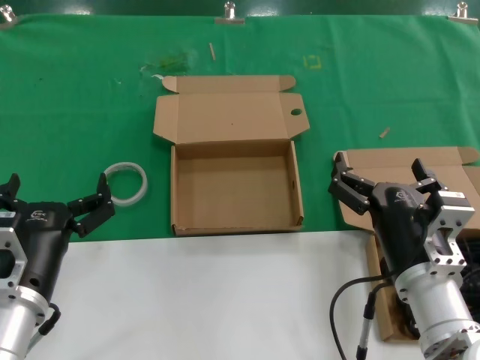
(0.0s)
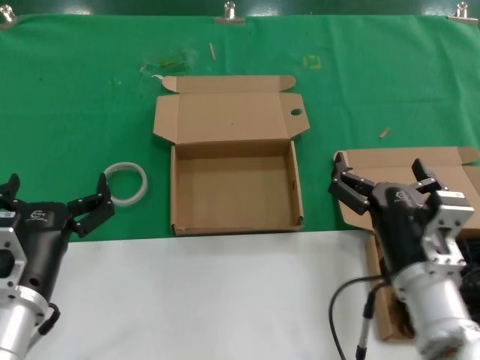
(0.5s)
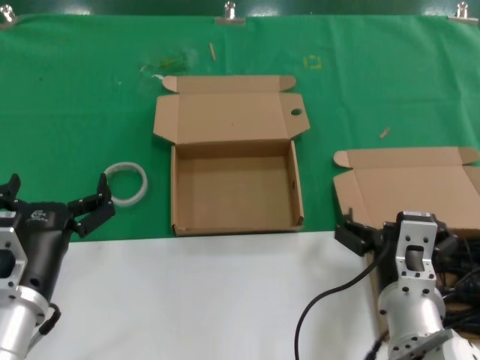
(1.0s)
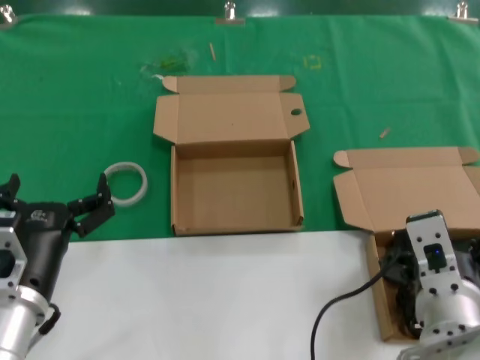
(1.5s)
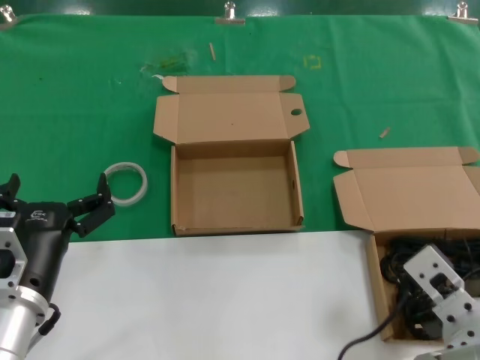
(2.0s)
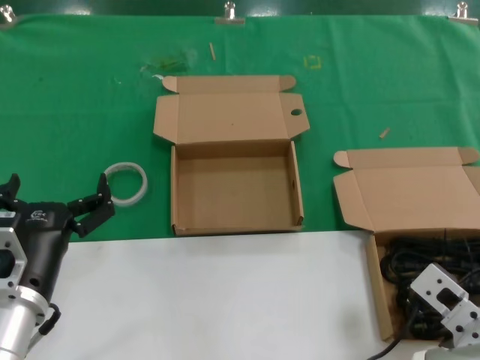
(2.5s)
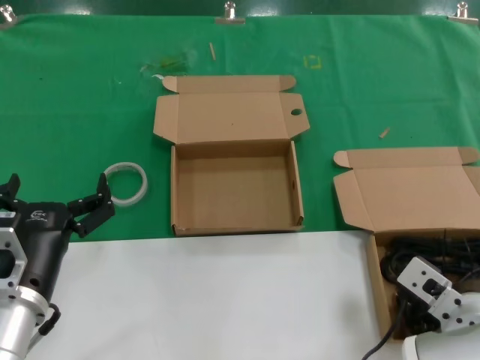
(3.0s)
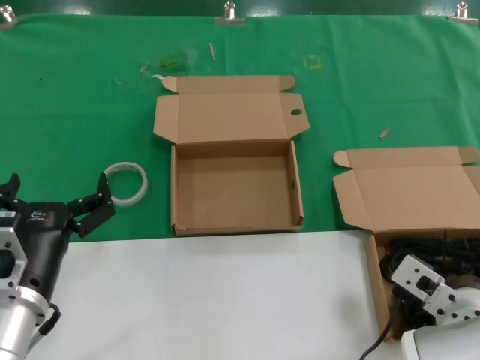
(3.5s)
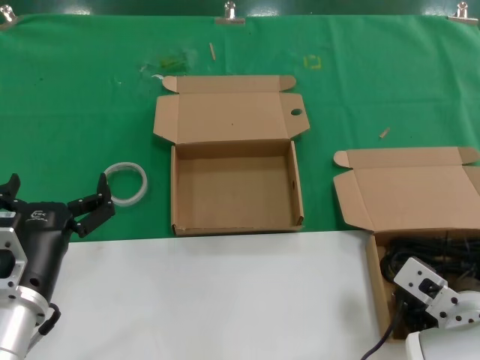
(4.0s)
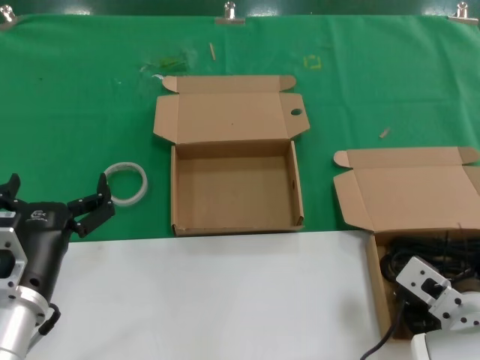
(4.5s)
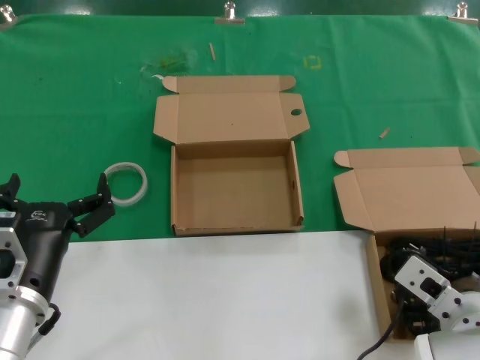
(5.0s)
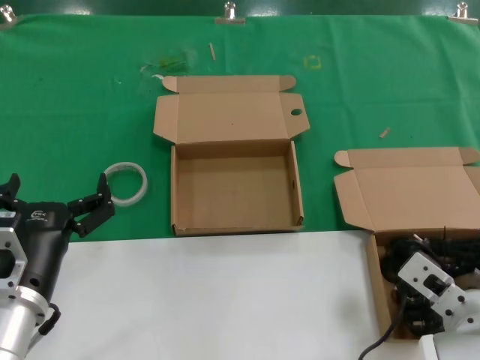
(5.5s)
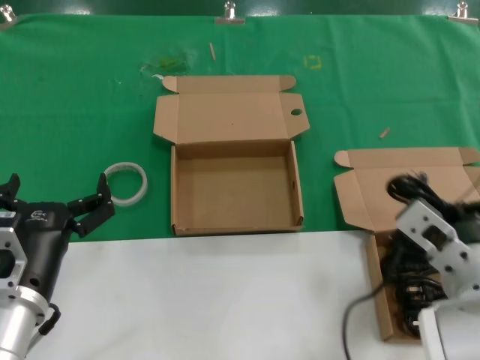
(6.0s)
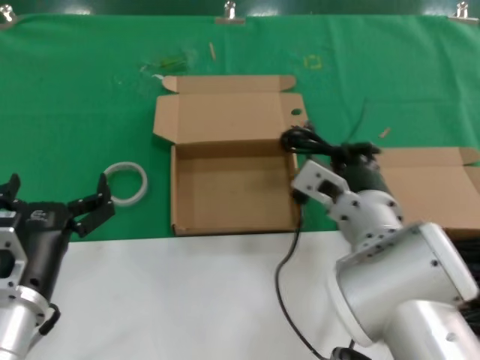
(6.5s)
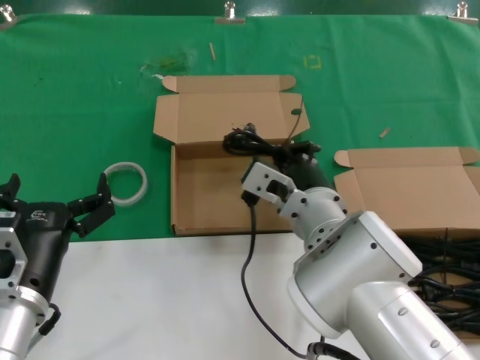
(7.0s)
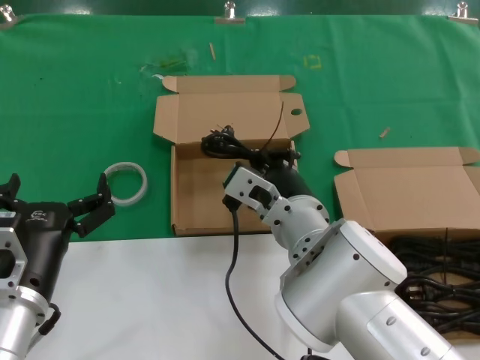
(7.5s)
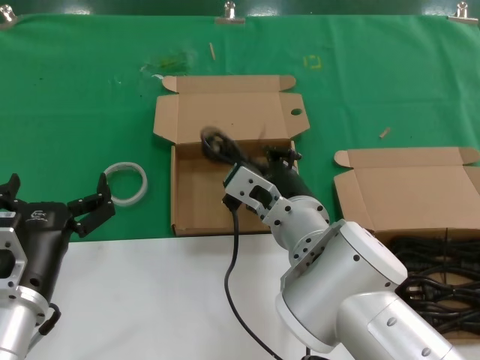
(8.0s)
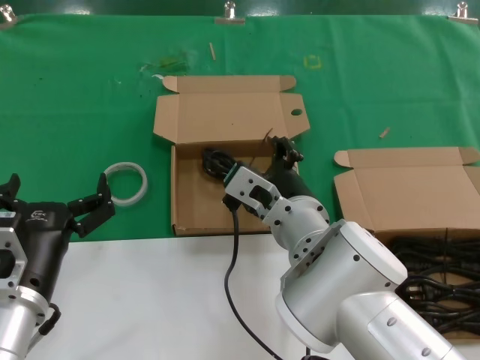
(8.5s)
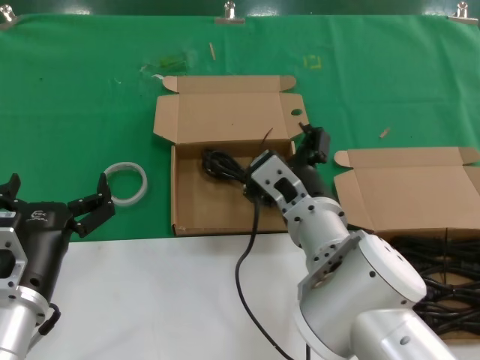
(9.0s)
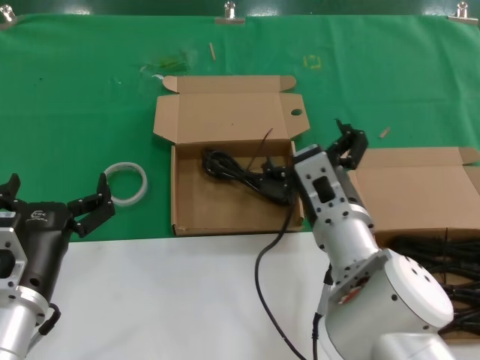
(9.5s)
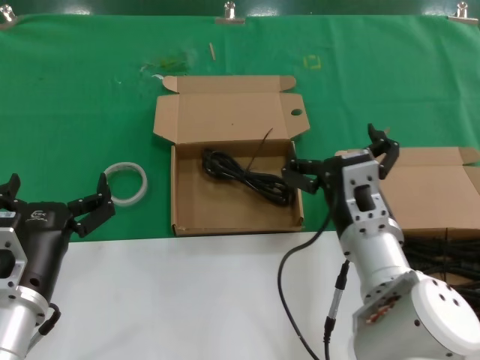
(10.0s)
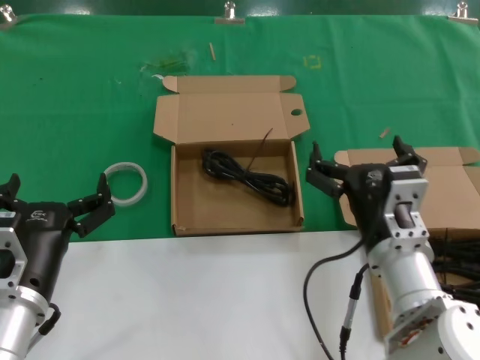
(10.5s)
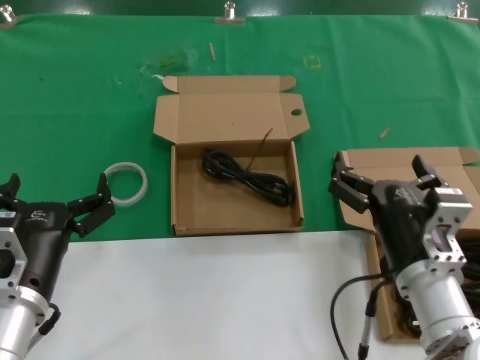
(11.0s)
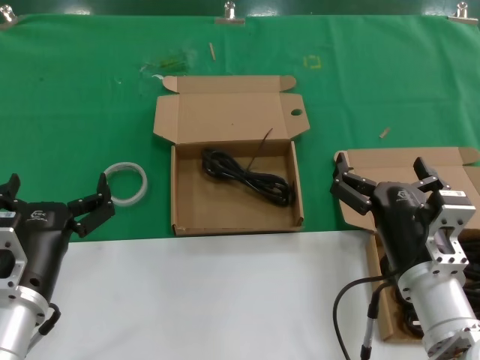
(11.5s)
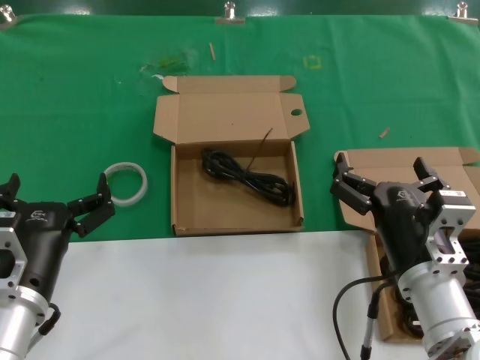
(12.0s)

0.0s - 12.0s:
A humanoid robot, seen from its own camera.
Task of the whole recording: take the parts from the box containing them and put them into an empty box.
Step, 0.0s - 5.0s: Grasp the data cable.
Step, 5.5s - 8.0s: Place the data cable in the another box.
0.0s - 2.0s: The right hand shifts roughly 5 cm upward.
2.0s - 4.0s: The right hand ends up approximately 5 cm from where it was.
4.0s - 6.0s: The right hand shifts approximately 5 cm upward.
6.0s - 8.0s: The right hand is displaced to the left and forward by about 15 cm.
8.0s - 10.0s: The right hand shifts about 5 cm to the right.
10.0s - 12.0s: The right hand heads to the right, covering some 5 cm.

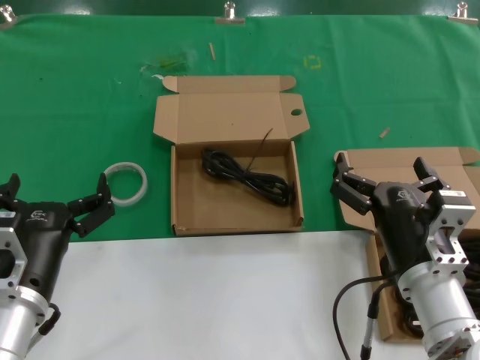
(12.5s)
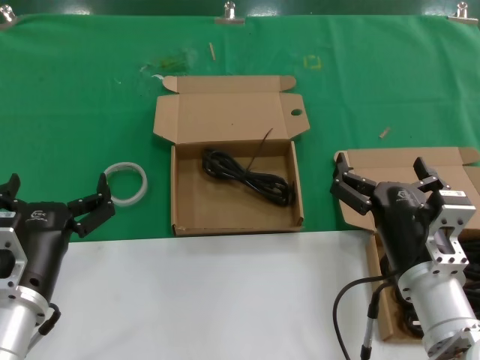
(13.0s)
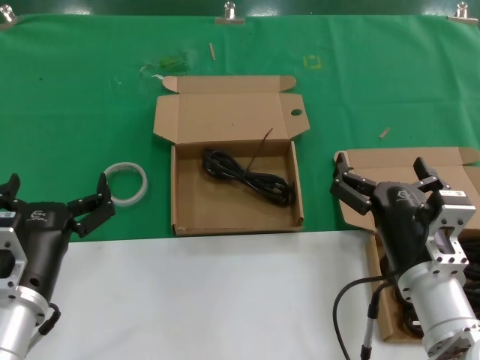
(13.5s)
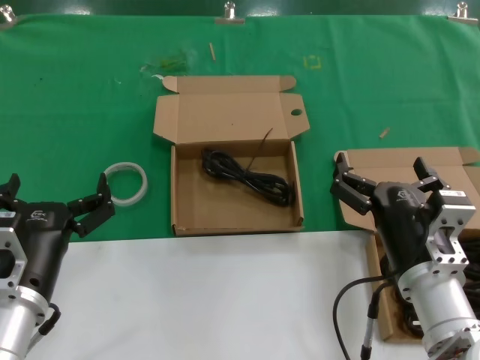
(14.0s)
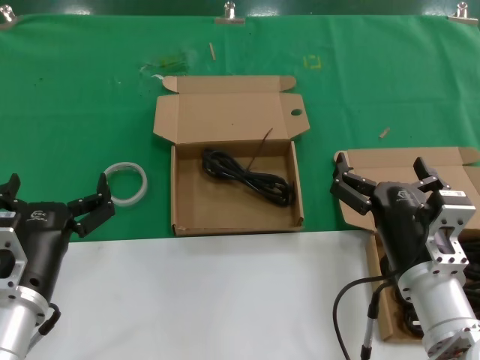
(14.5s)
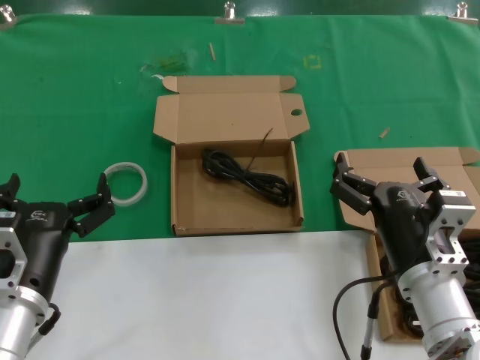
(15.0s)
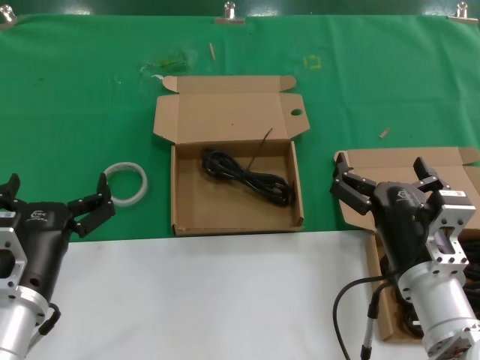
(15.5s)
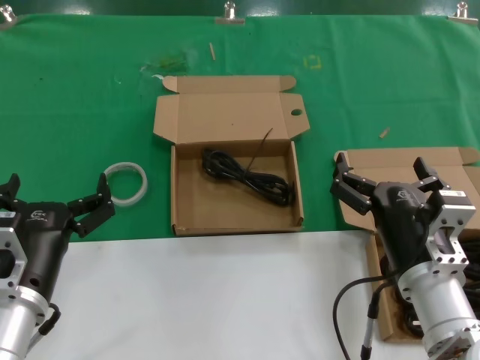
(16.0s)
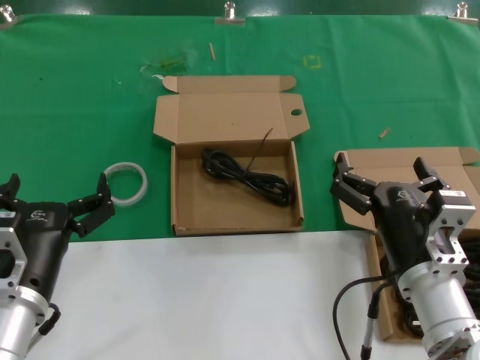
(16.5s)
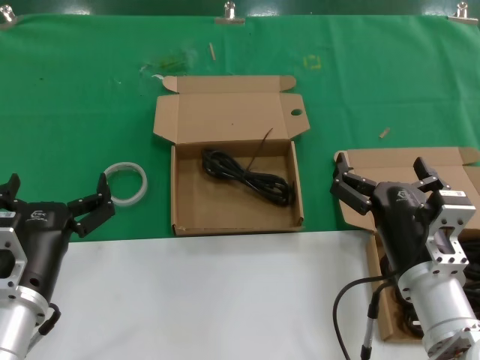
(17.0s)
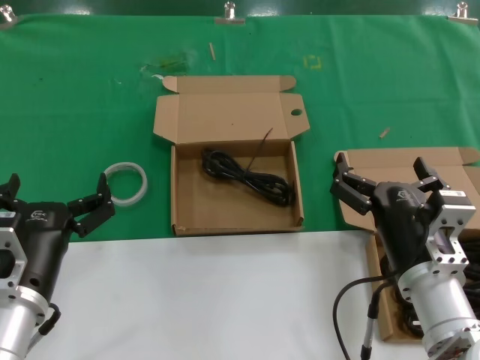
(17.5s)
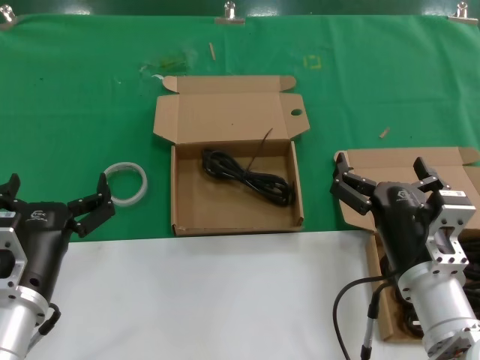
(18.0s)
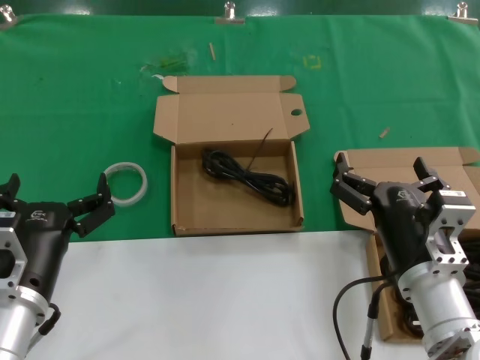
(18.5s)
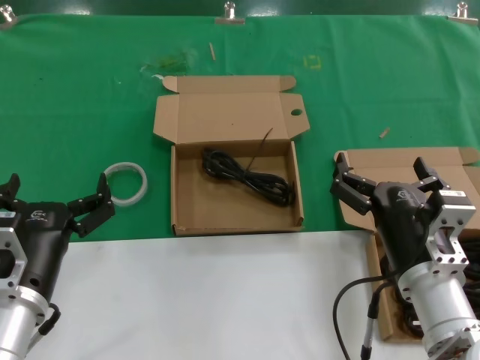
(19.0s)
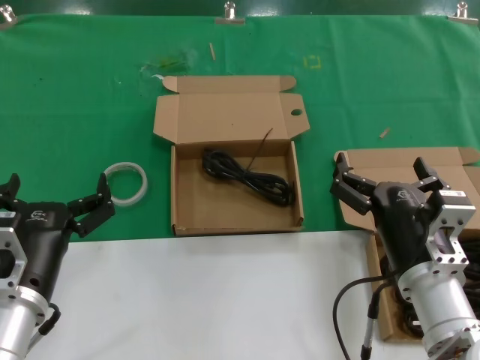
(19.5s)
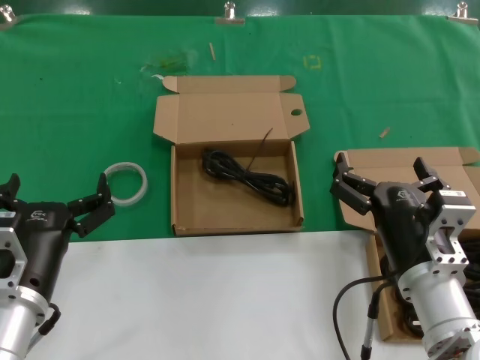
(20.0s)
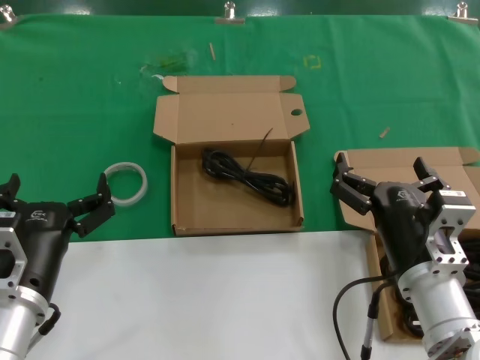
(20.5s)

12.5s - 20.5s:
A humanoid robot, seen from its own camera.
Task of the whole recording: take the parts from the box containing them and put them into an empty box.
12.5s - 20.5s: Both hands stay put.

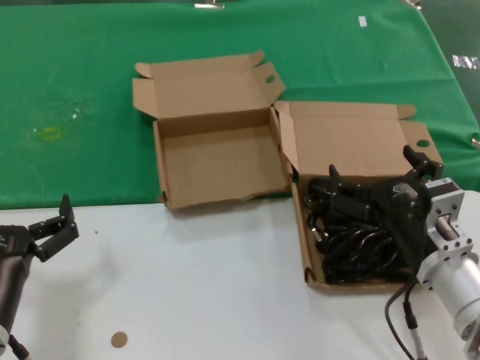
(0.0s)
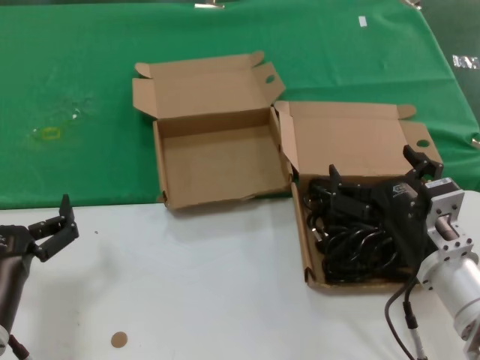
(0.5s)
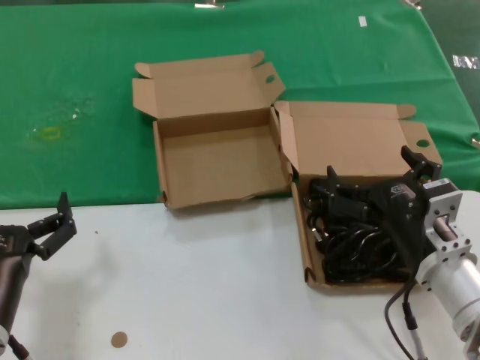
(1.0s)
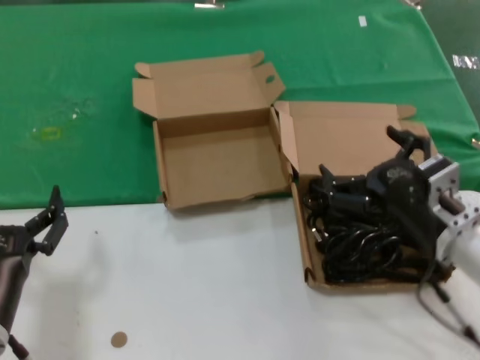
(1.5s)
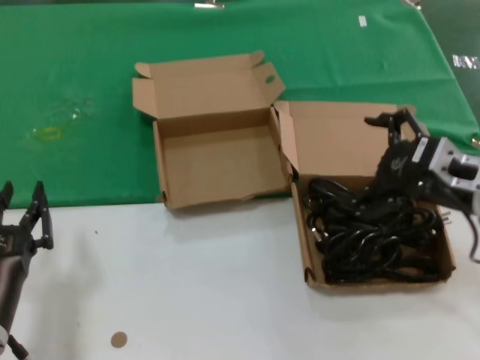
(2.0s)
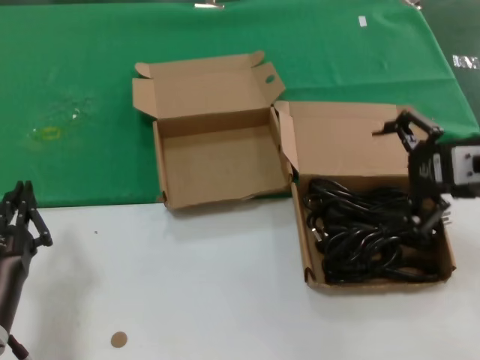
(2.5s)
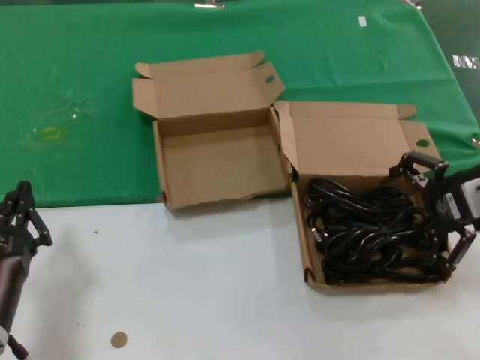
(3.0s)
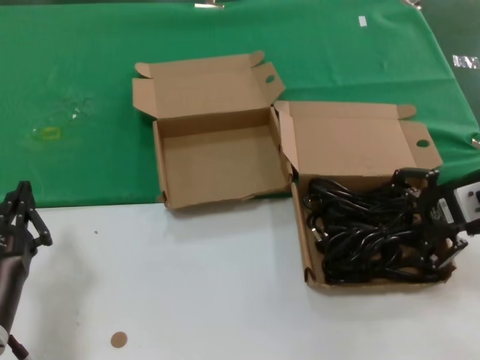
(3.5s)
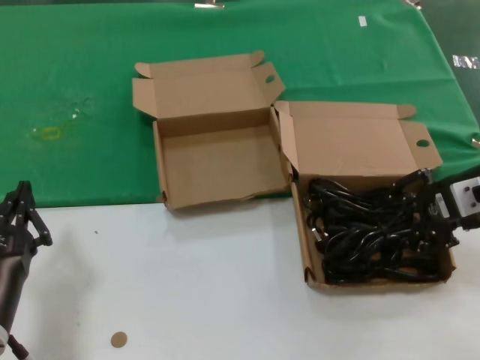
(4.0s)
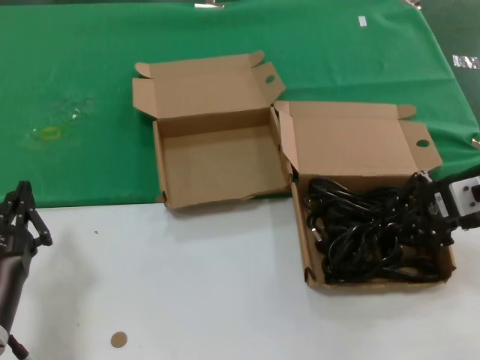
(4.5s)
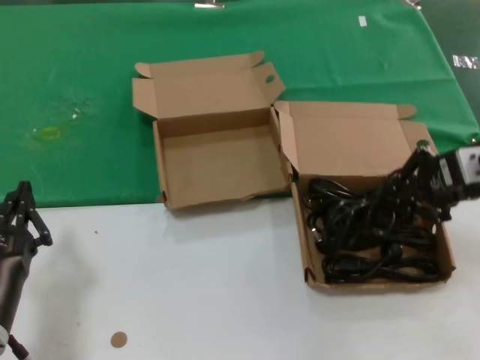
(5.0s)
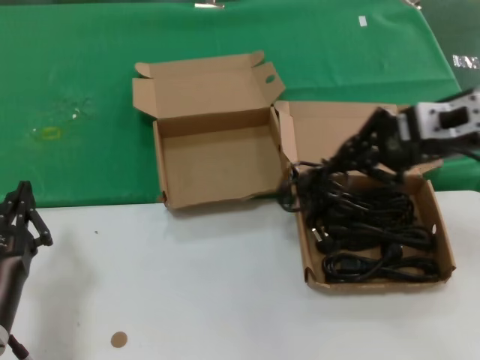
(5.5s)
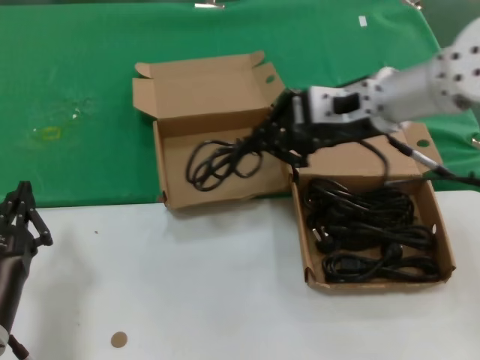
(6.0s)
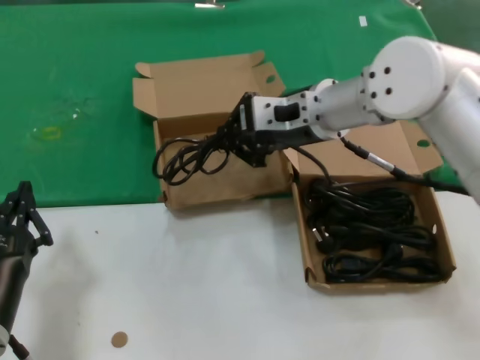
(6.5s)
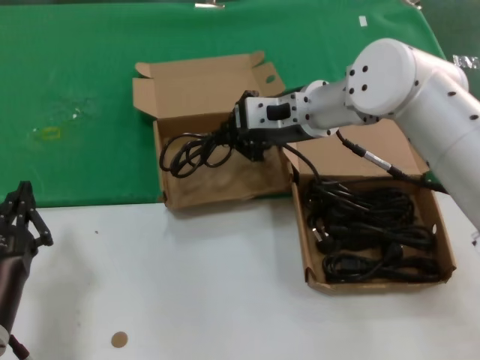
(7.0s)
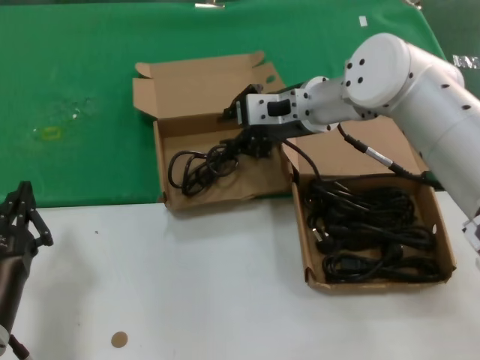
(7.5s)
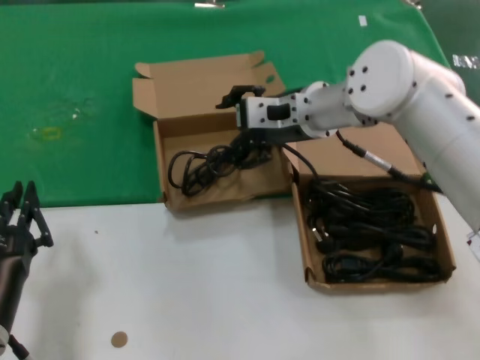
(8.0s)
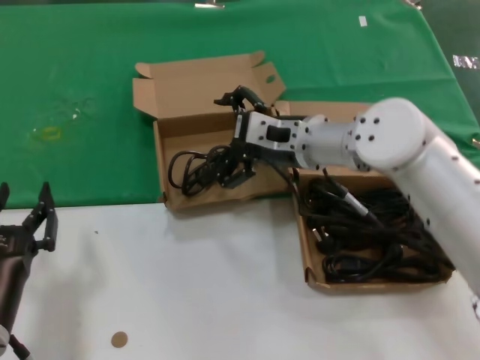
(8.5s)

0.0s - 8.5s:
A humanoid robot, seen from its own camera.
Task of the whole recording: take the parts from the box containing them and put them into an empty box.
Step, 0.0s - 4.5s: Grasp the data cable.
Step, 5.0s - 7.0s: Place the data cable in the another box.
0.0s - 2.0s: The right hand goes roughly 15 cm upward, to the right and forward.
2.0s - 4.0s: The right hand shifts by some 5 cm.
4.0s - 6.5s: The right hand travels to the left and forward by roughly 25 cm.
6.5s - 8.5s: The right hand heads downward, covering some 5 cm.
